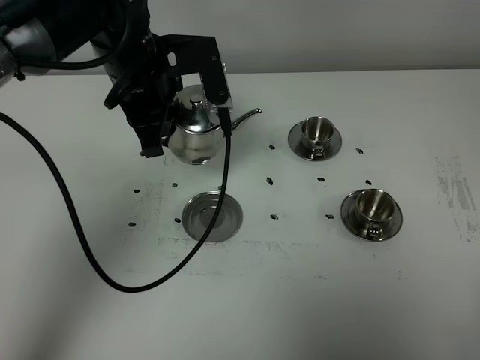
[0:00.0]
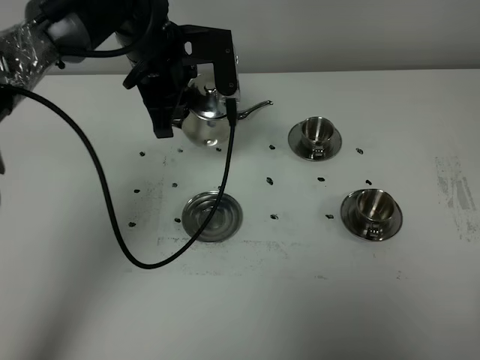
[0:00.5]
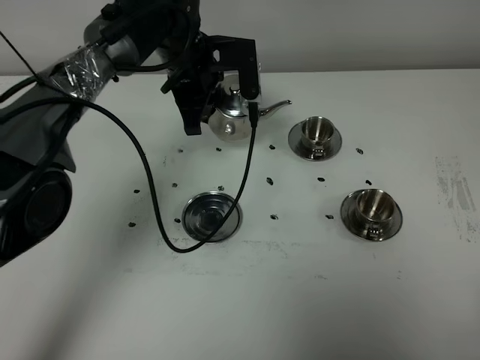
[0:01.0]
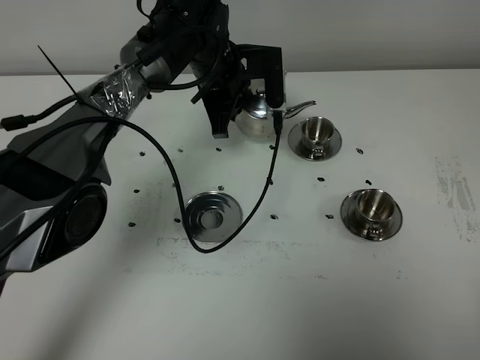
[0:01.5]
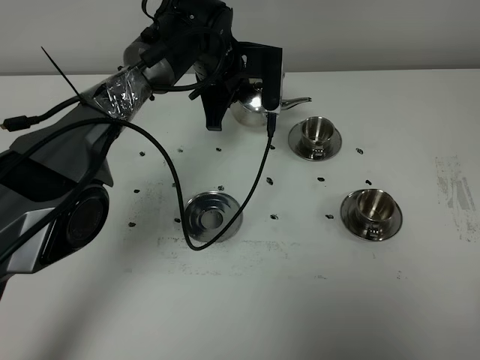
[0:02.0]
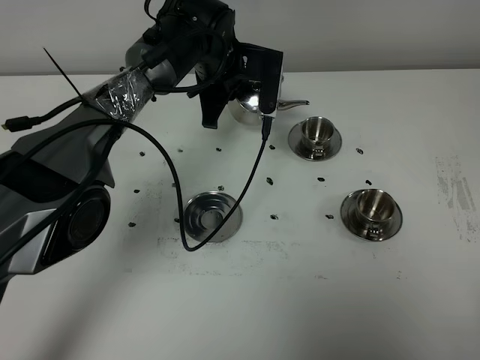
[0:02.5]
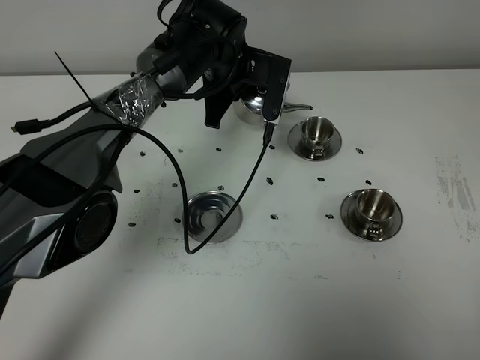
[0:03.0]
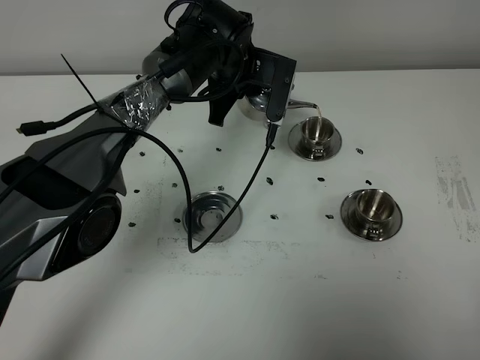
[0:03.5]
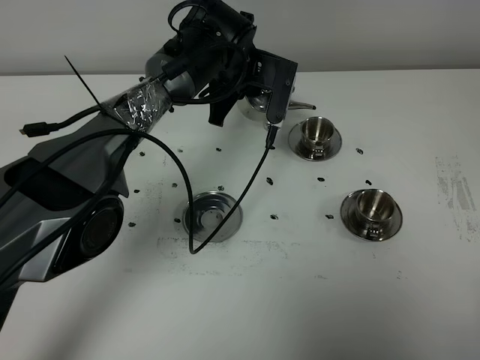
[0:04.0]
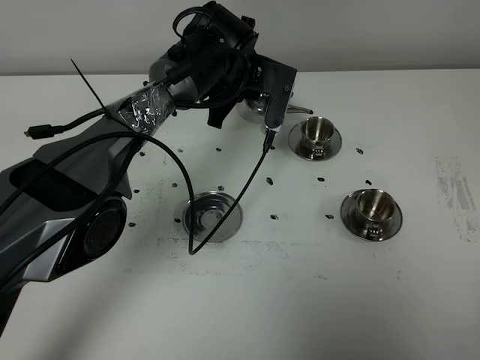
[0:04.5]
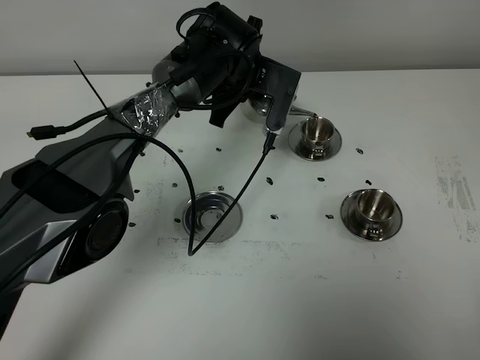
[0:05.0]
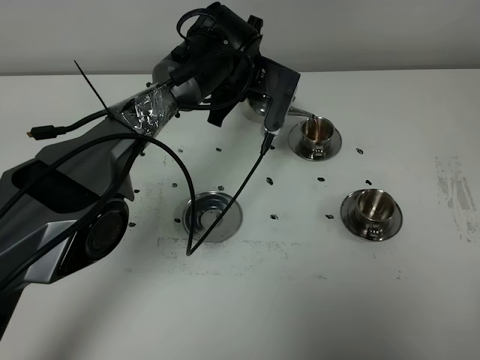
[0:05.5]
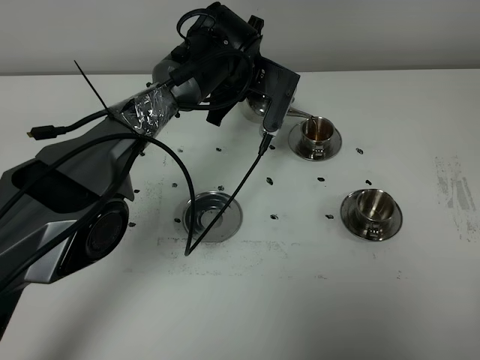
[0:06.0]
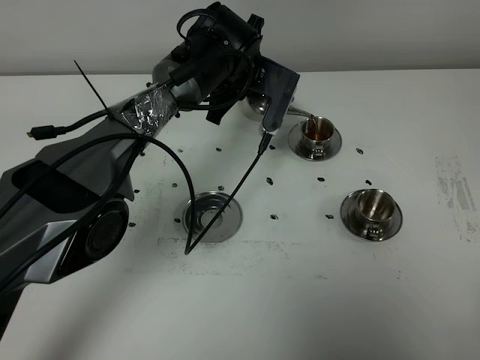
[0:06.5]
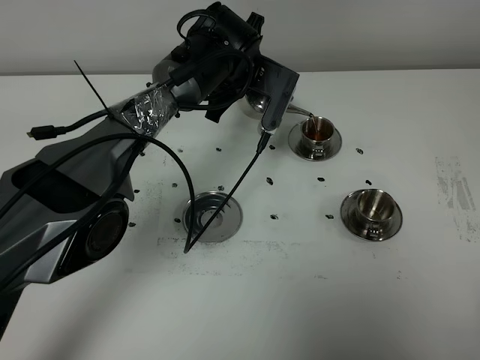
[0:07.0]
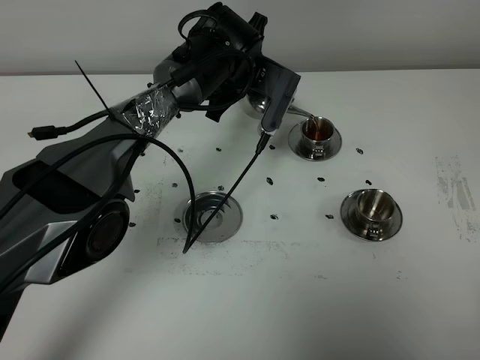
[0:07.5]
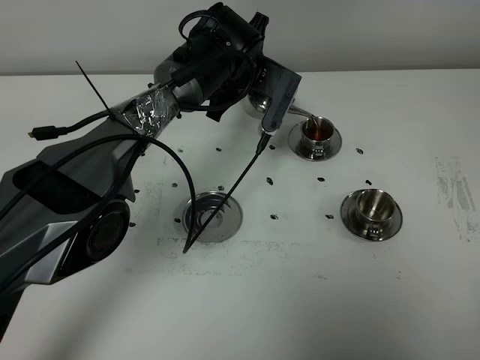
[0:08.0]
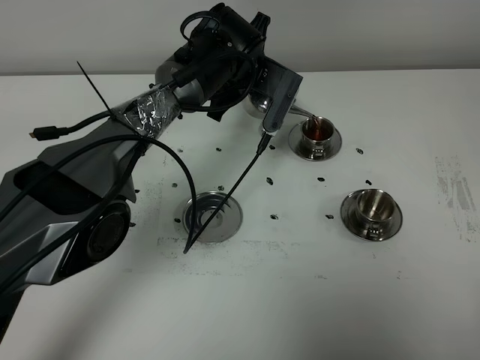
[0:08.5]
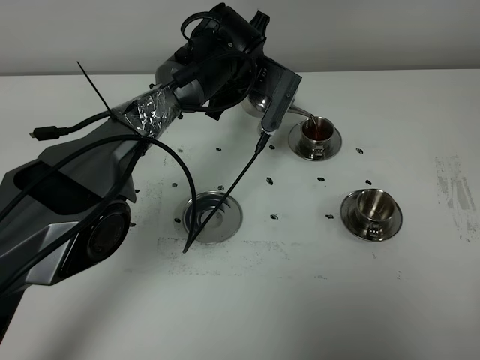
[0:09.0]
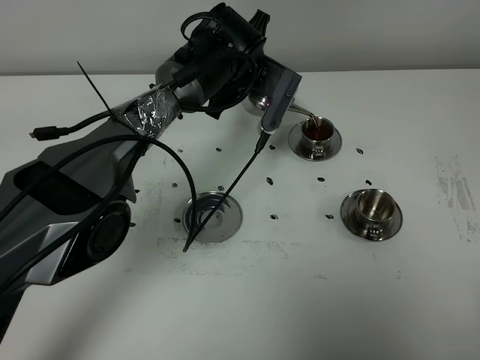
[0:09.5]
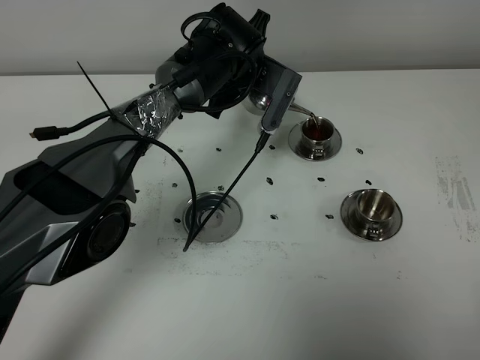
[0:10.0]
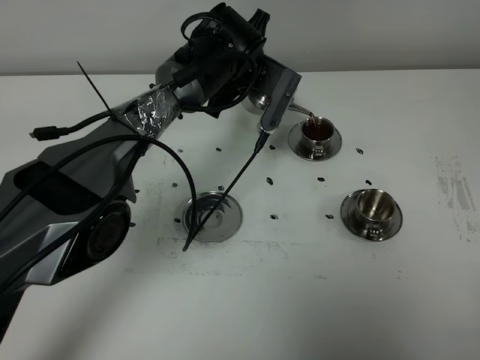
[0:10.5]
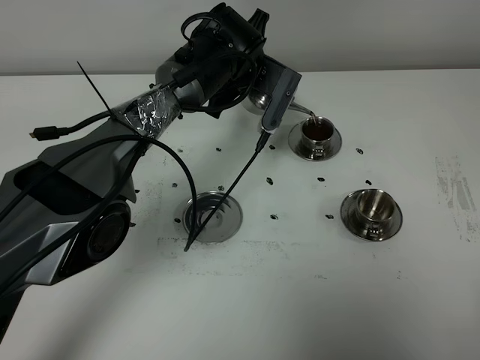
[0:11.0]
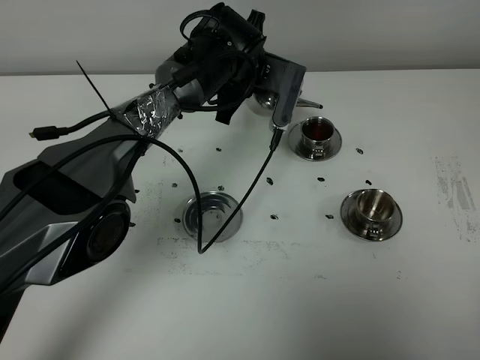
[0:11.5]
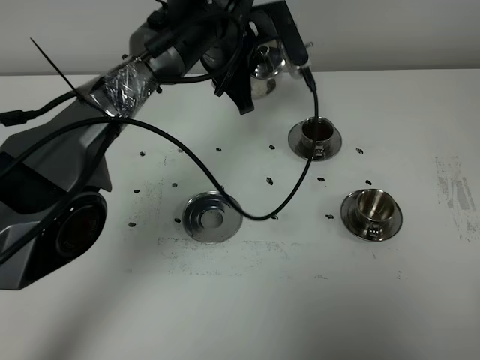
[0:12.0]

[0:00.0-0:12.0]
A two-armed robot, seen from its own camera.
Task of the whole recording: grasp the stainless steel teapot and pour the tea into the two stainless steel teacups one by one, put the stainless steel teapot back in its original place.
0:00.0 to 0:02.0: The left gripper shifts some 15 cm forward, downward and to the right.
0:02.0 to 0:04.0: The grippers move only a little.
0:04.0 to 0:06.0: There are only small adjustments of the grippers.
0:06.0 to 0:08.0: Both grippers stay put.
0:08.0 to 0:10.0: Both grippers stay put.
0:10.0 to 0:12.0: The left gripper shifts about 5 cm upward.

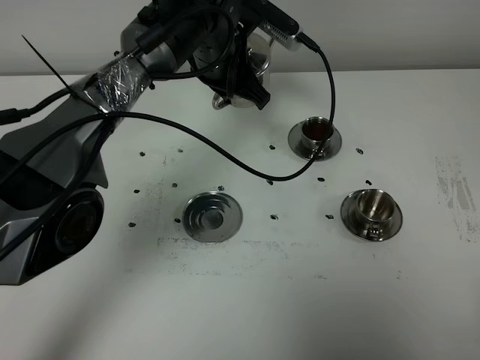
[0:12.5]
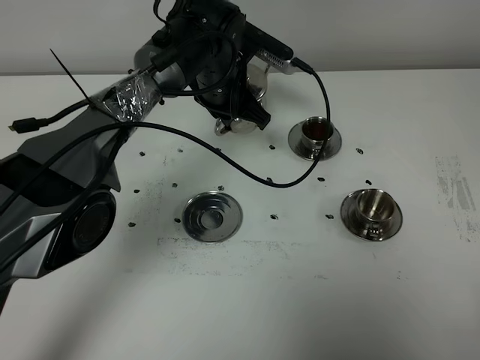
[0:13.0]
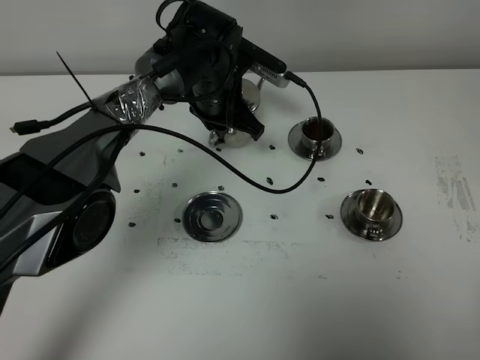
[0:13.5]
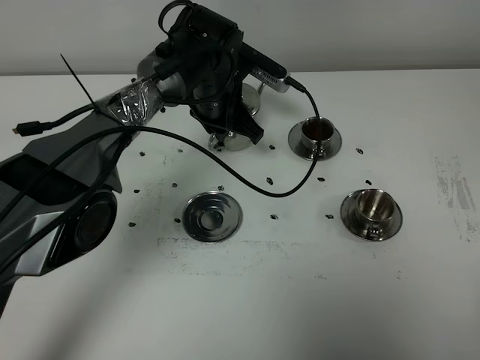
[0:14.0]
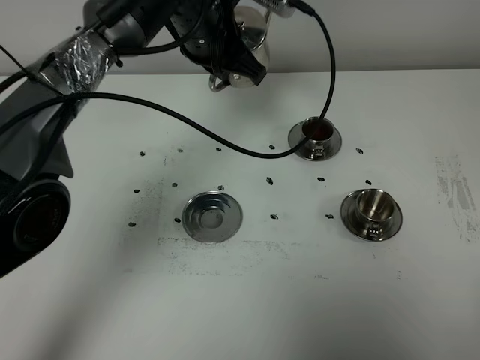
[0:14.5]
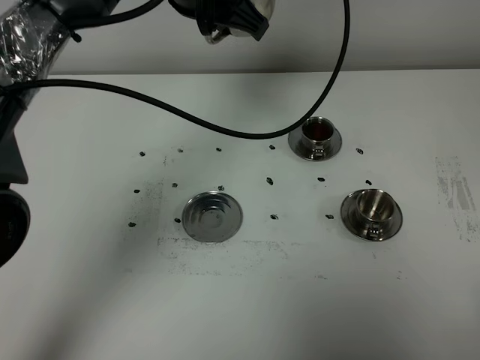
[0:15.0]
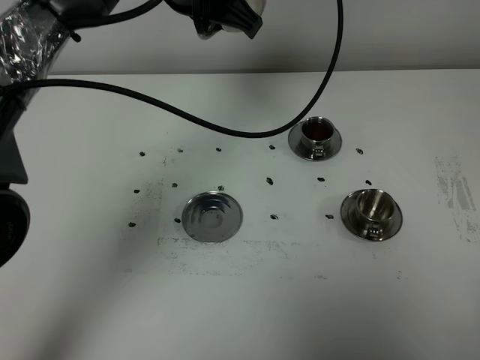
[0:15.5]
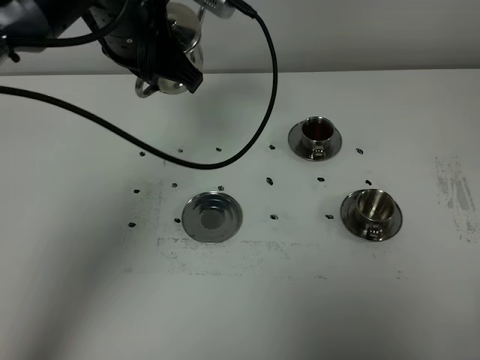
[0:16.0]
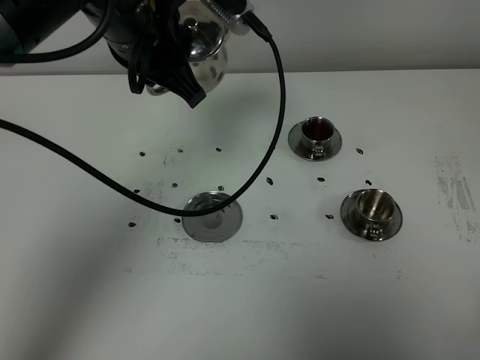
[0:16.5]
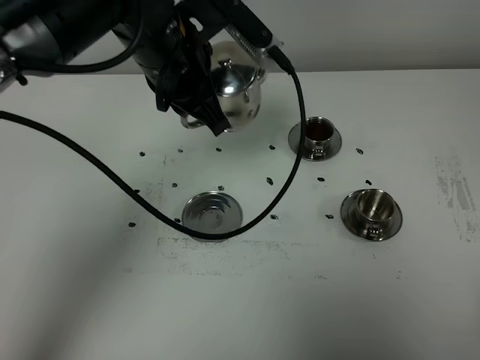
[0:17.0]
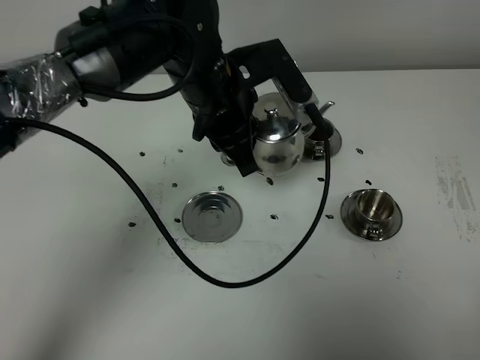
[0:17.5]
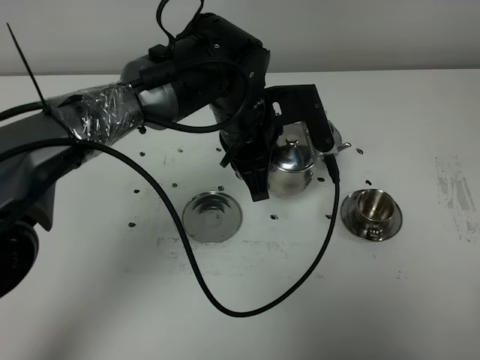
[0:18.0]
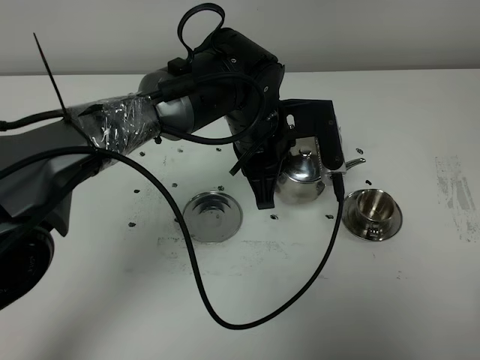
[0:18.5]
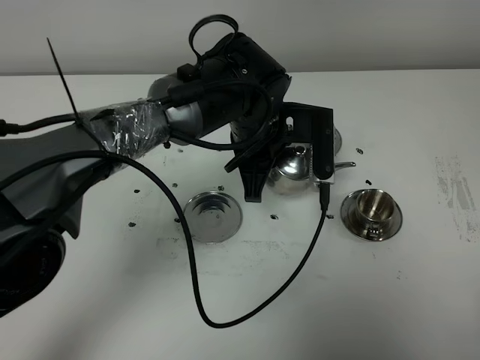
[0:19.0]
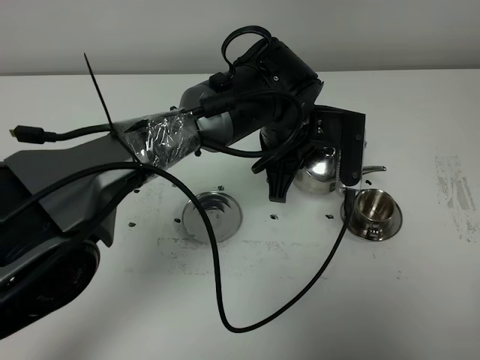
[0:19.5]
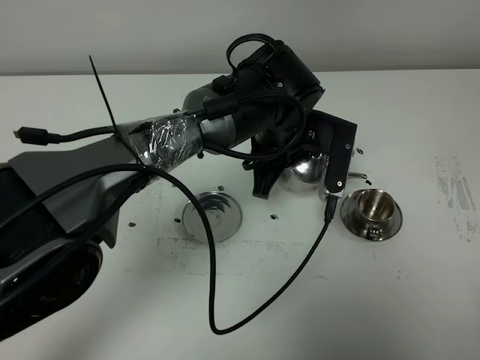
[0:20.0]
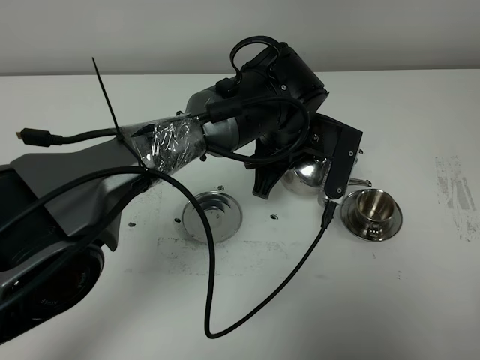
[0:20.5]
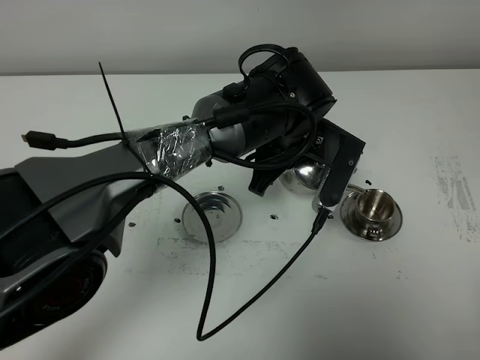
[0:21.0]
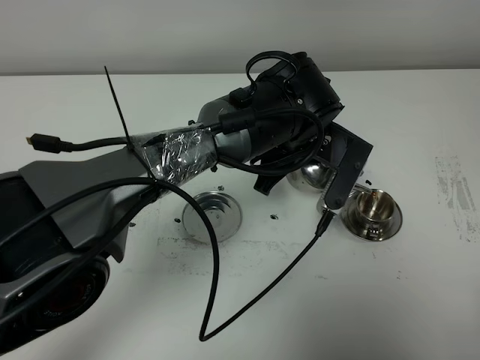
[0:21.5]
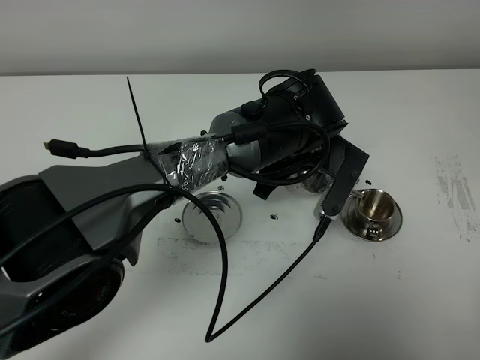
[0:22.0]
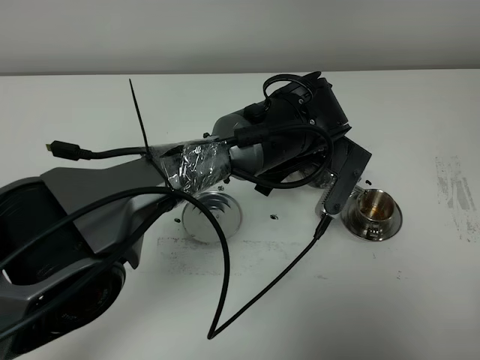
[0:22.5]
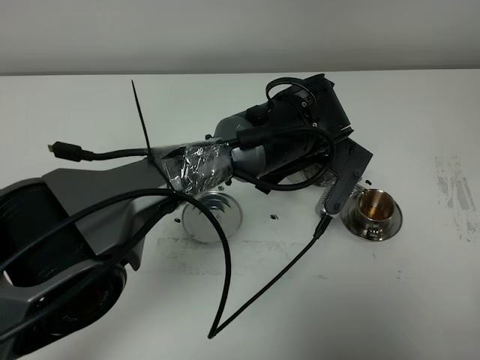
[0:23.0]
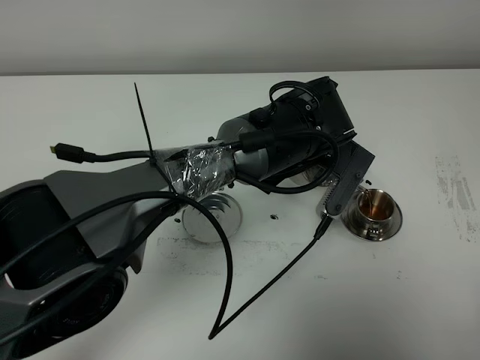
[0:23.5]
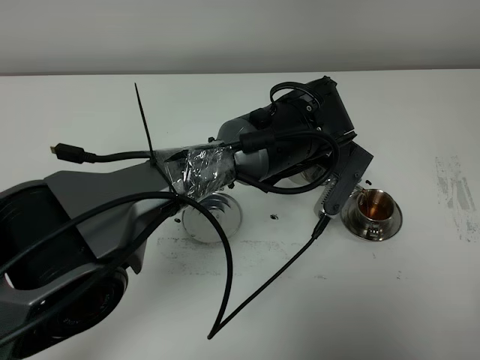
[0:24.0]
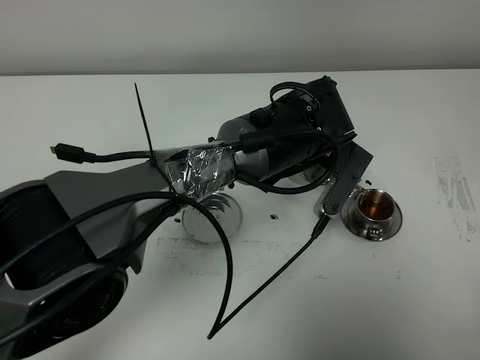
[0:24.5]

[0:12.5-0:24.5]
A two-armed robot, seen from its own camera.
Task of the whole recording: grasp the stainless steel teapot and pour the tea into the two stainless steel teacups one by one, put the stainless steel teapot back in its original place.
0:12.5 to 0:14.5: The left gripper is displaced upward by roughly 5 cm.
0:14.5 to 0:16.5: The left gripper shifts roughly 10 cm backward and upward.
0:16.5 to 0:18.5: The left gripper moves downward and to the right, roughly 20 cm.
0:22.5 to 0:24.5: Both grippers stay put.

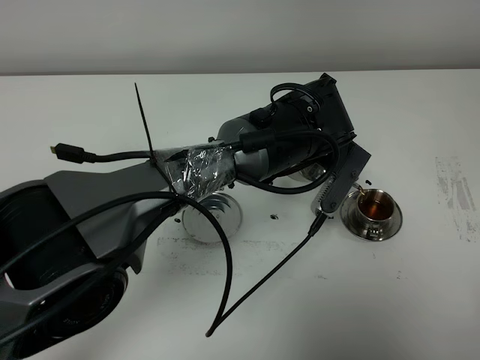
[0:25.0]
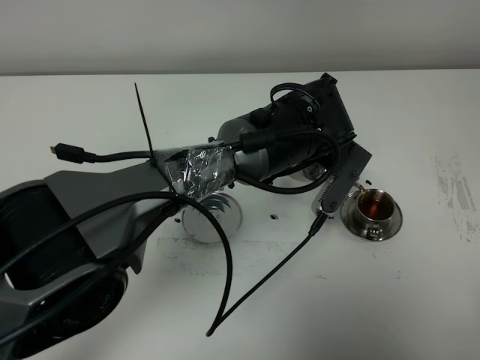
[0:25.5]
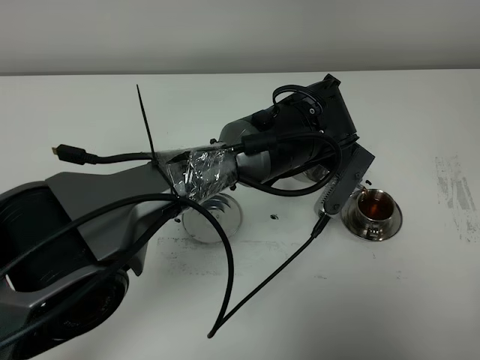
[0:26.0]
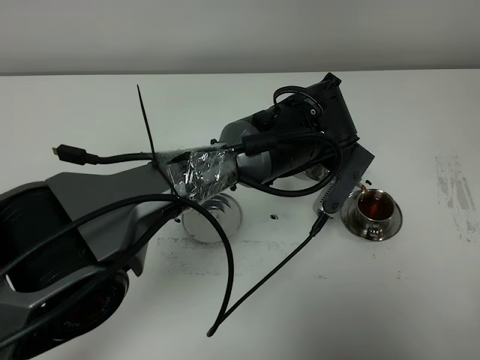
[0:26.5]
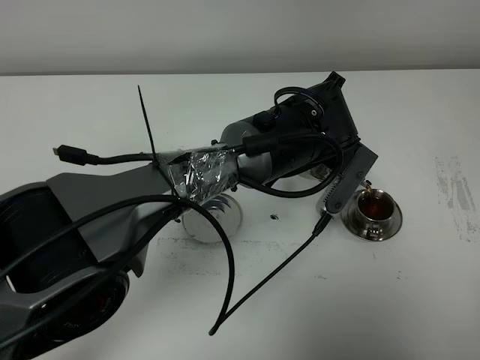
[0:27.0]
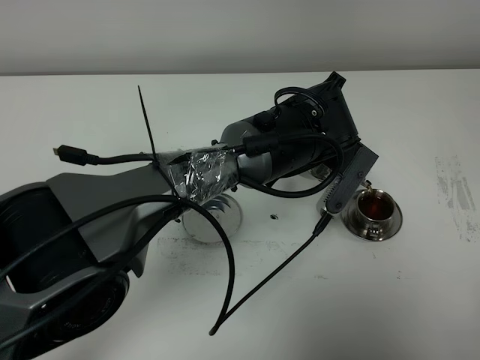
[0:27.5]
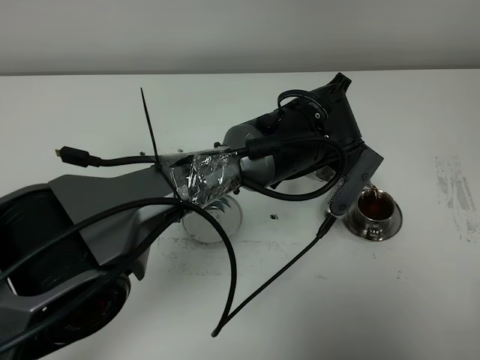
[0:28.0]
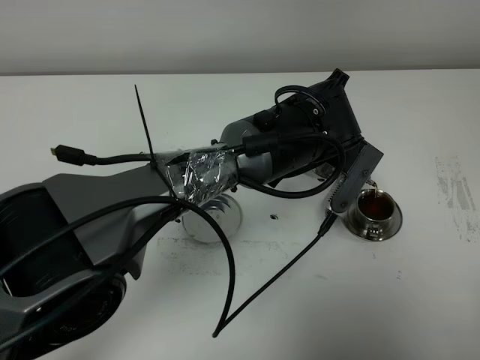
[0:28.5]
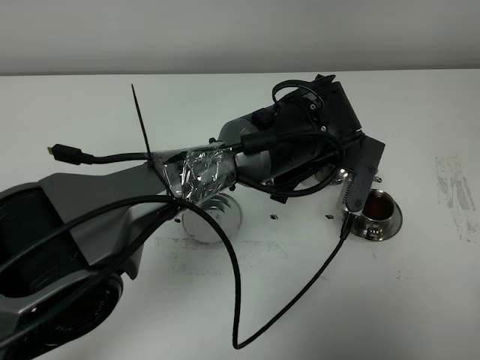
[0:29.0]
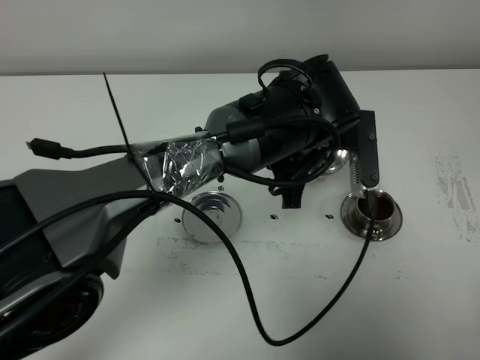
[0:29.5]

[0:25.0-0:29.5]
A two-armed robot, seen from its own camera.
Task of the whole recording: grasp the stainless steel teapot and pour the tea into the two stainless steel teacups one by one, put the stainless steel teapot back in its original place.
Step, 0:25.0 to 0:28.5: Pour tea into the teacup with the left gripper.
0:25.0 to 0:27.0: Both grippers stay about where they are.
